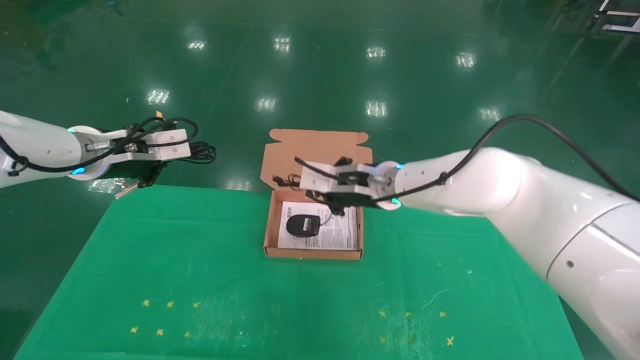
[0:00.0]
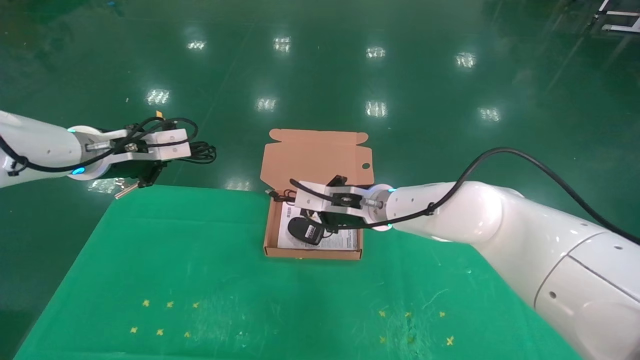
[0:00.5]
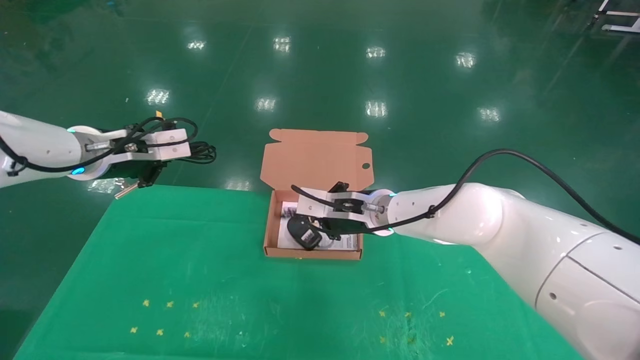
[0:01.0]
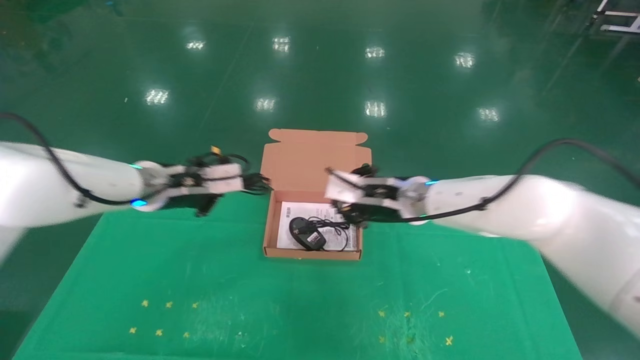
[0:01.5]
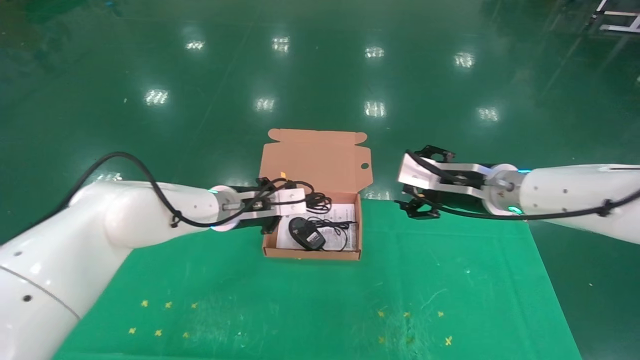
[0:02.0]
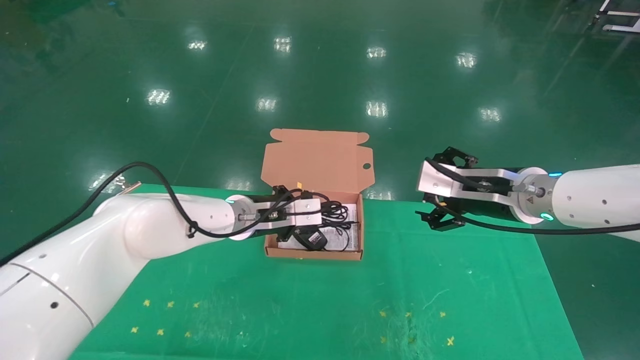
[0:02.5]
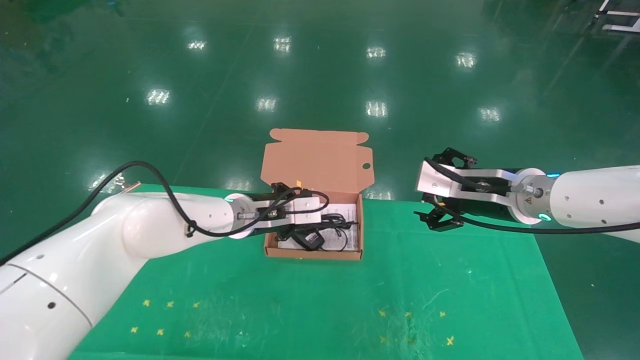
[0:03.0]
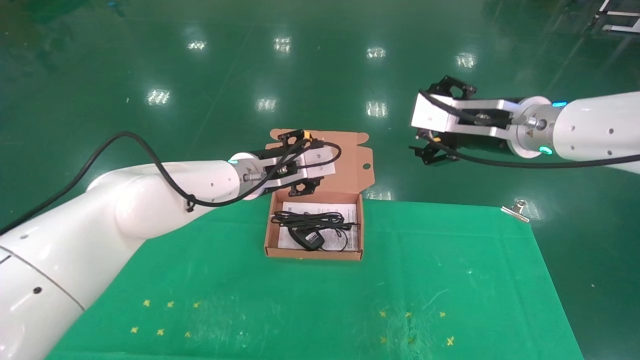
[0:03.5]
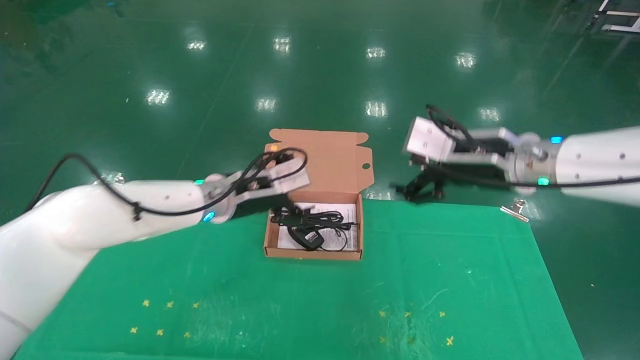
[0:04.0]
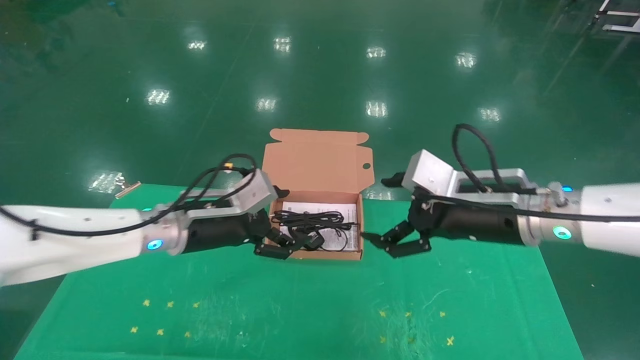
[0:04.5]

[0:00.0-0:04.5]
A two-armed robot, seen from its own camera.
Task of the whole recording: grasp data cable left put into box grasp mouse right put into box.
Step, 0:00.0 to 0:04.0: Place the mouse and power cord into the box.
0:00.0 to 0:02.0: The right gripper heads to the right, covering roughly 15 cm, and opens up; the left gripper travels to the right and downward by about 20 cm.
0:02.0 to 0:04.5: Both grippers move backward, some 10 cm. The left gripper opens.
